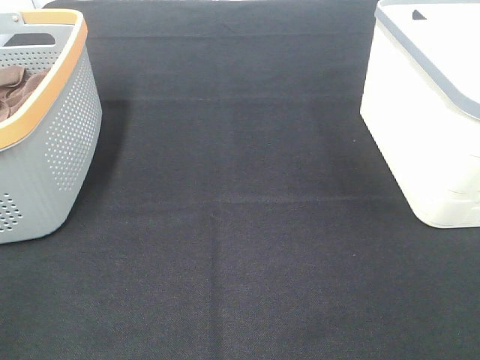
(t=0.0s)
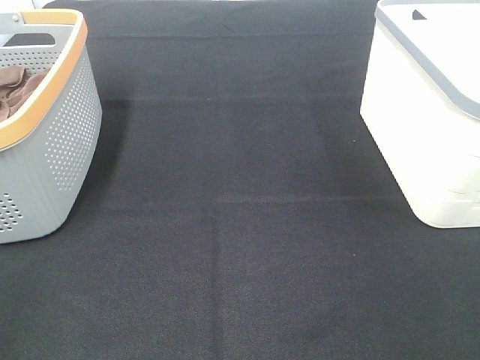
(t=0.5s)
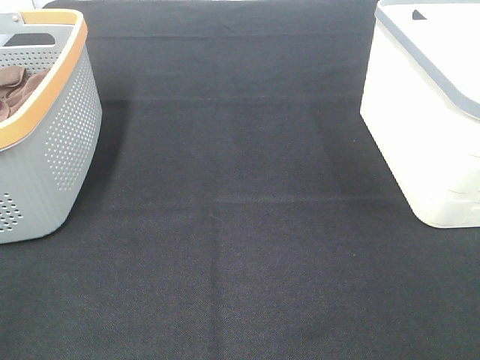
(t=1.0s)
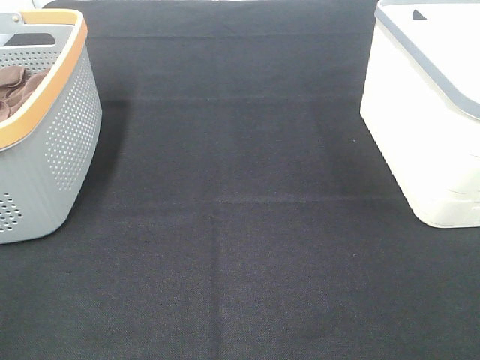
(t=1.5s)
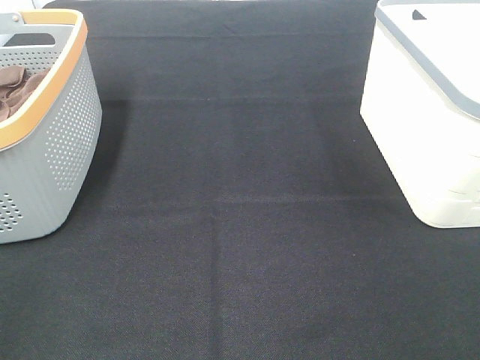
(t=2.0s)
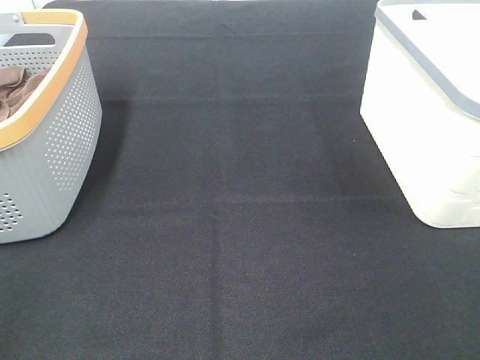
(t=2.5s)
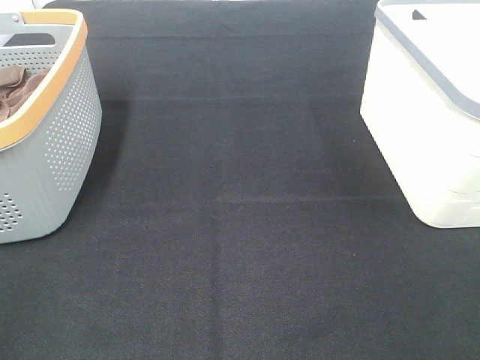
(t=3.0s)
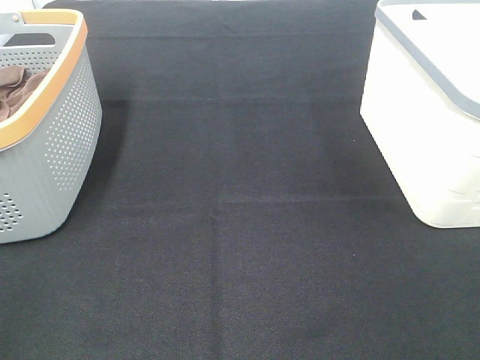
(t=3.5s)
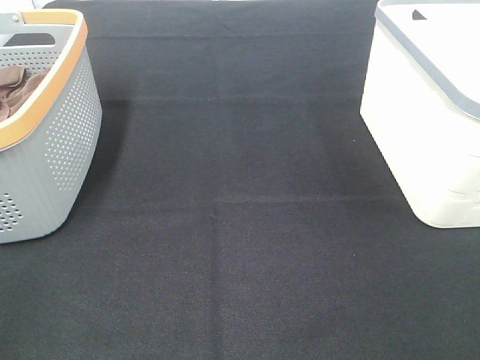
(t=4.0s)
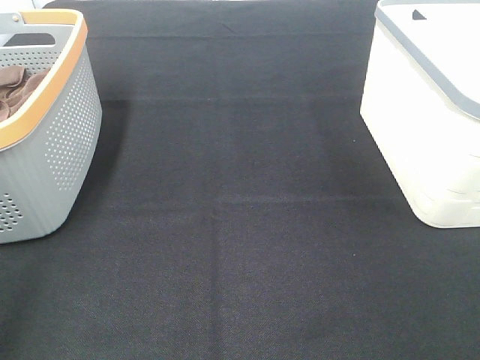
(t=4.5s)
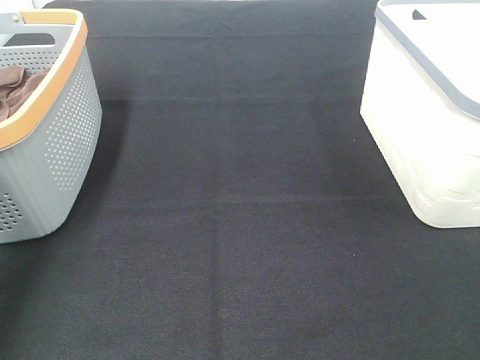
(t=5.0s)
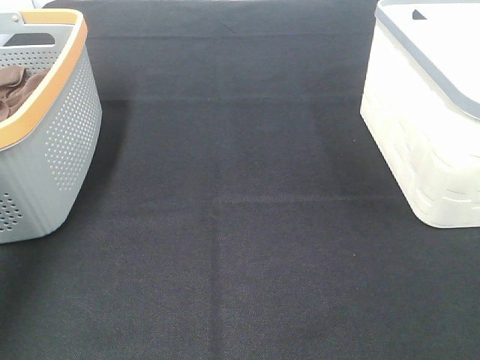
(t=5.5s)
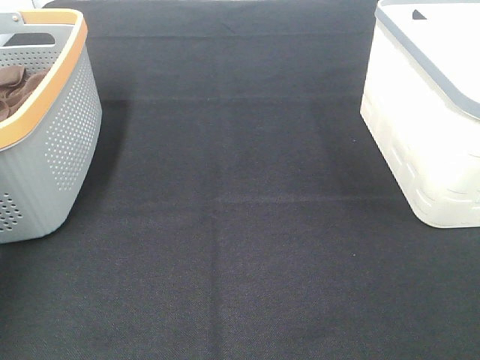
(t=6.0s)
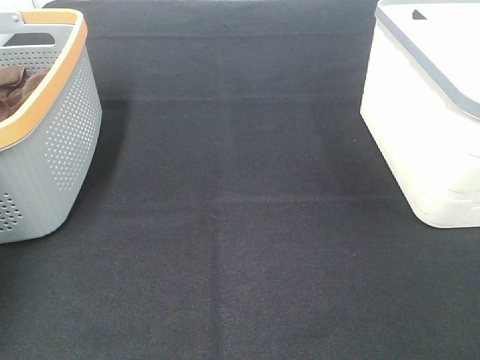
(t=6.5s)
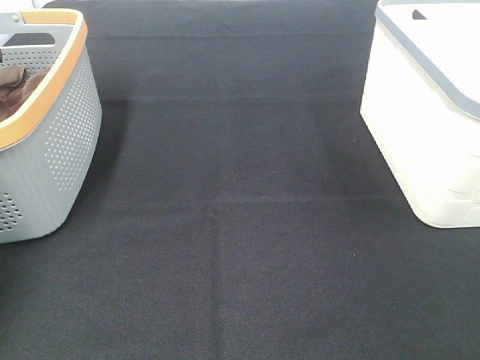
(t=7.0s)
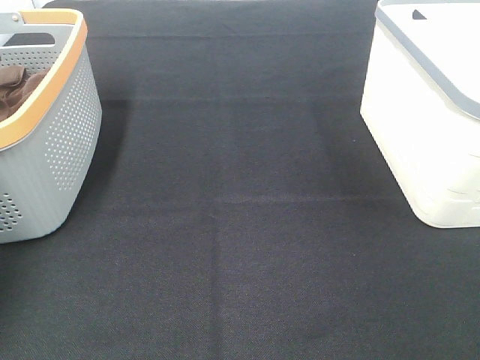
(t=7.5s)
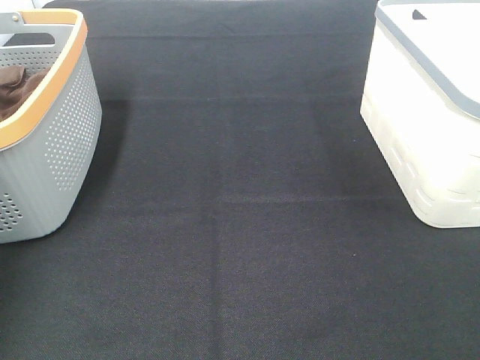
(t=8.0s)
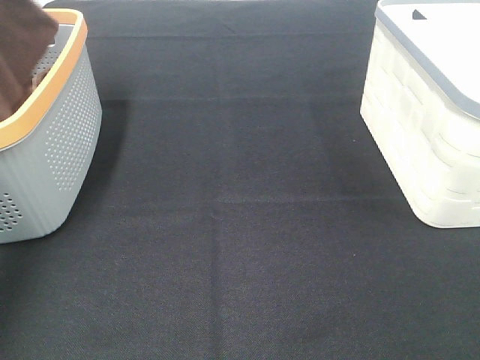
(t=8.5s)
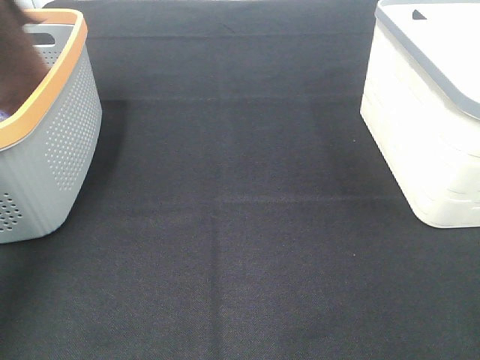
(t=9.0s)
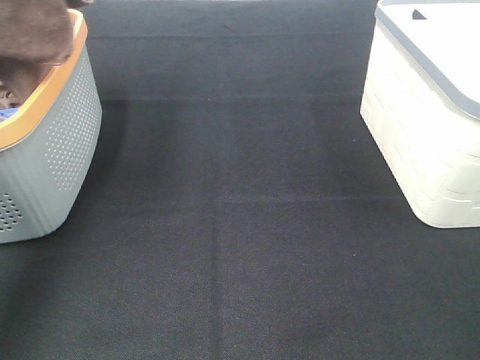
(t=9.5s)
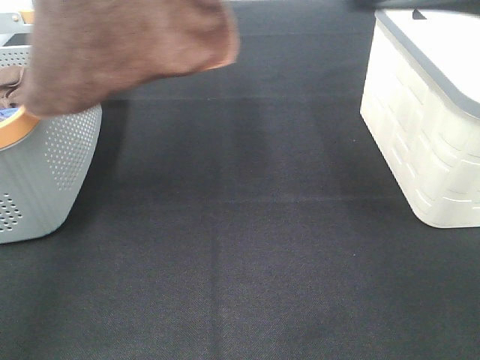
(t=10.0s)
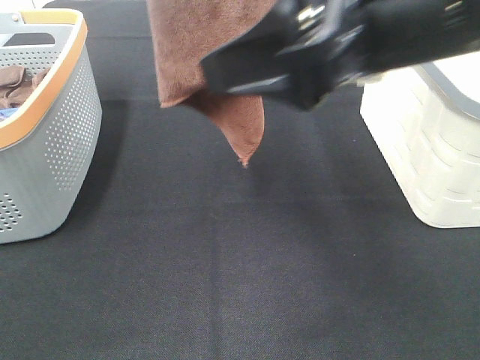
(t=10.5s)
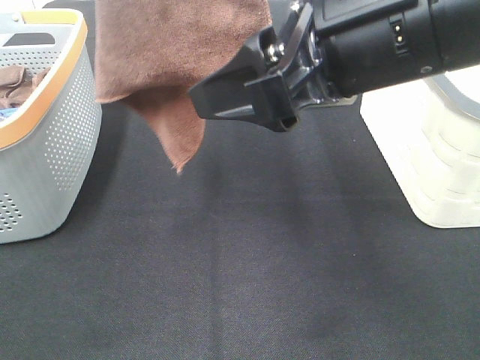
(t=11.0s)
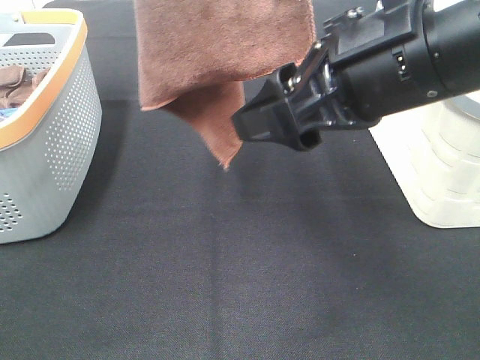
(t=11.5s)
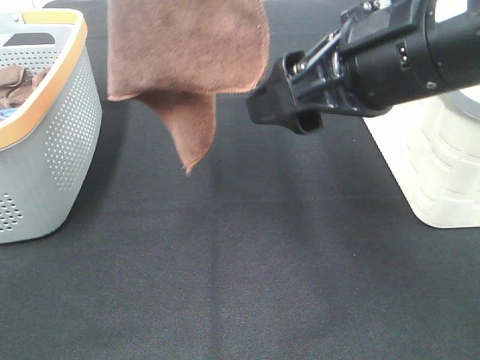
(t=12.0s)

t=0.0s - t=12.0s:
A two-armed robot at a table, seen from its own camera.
Task of the whole recording: Remove the towel and place it.
t=0.0s - t=4.0s: Both grippers stay about where they are.
t=4.0s - t=6.0s: The left gripper shifts roughly 40 cm forward.
t=8.0s - t=10.0s: The right gripper travels forward, to the left and upward by approximately 20 cm. The left gripper moves upward, to the right and backward, about 35 cm.
t=10.0s - t=12.0s: The right gripper travels downward, to the left and forward by approximately 10 cm.

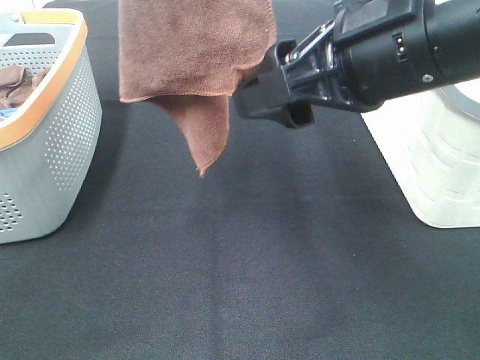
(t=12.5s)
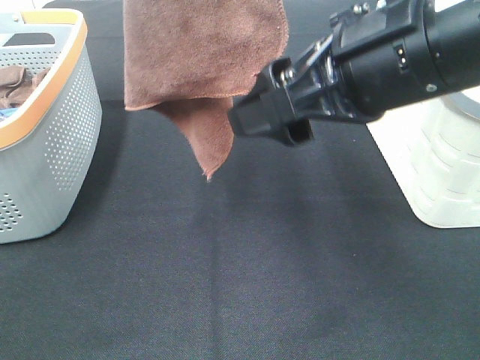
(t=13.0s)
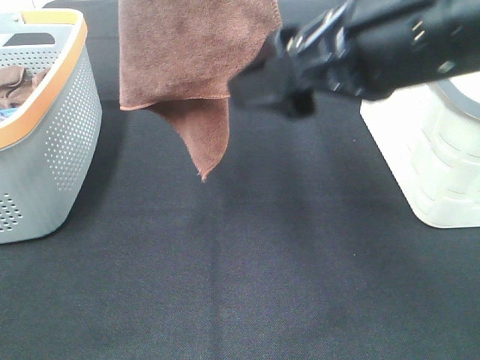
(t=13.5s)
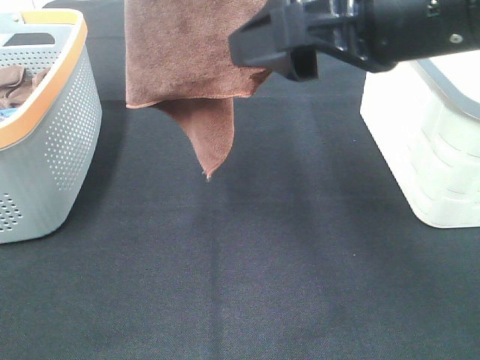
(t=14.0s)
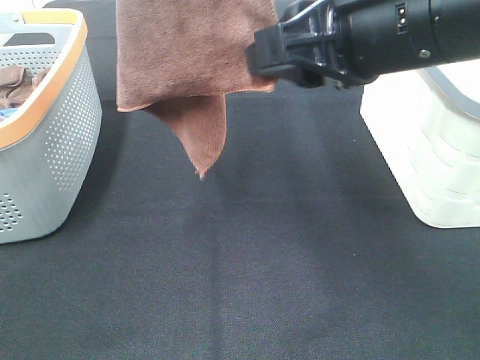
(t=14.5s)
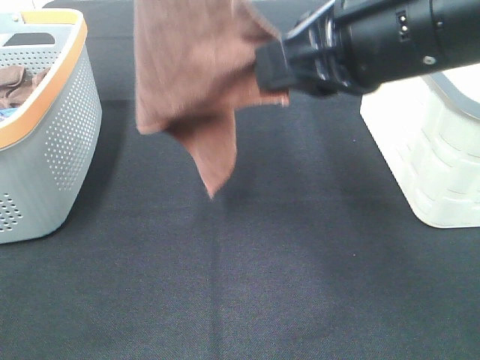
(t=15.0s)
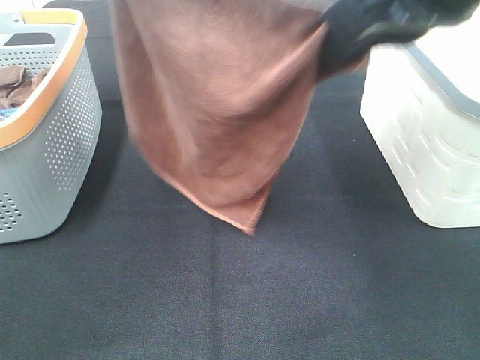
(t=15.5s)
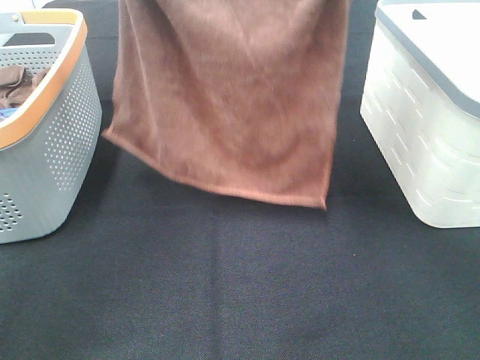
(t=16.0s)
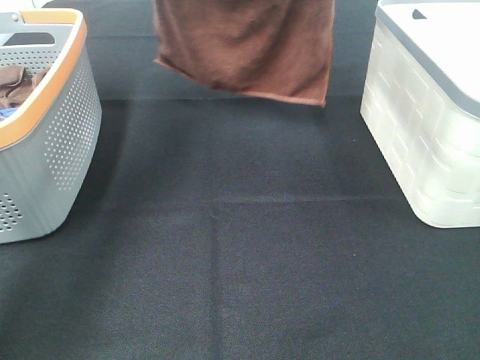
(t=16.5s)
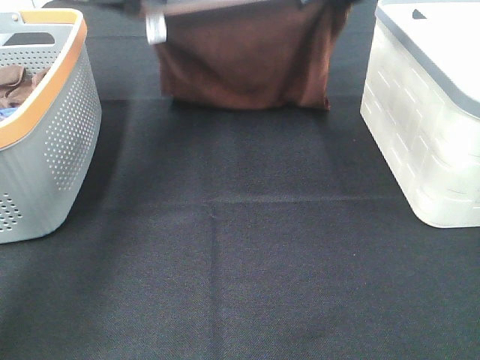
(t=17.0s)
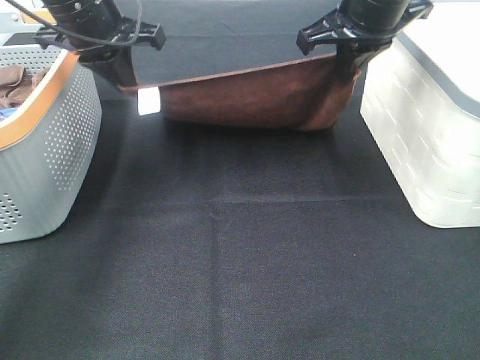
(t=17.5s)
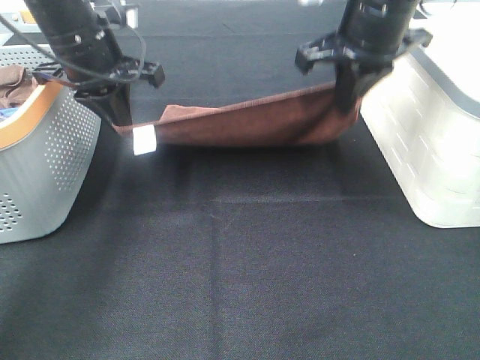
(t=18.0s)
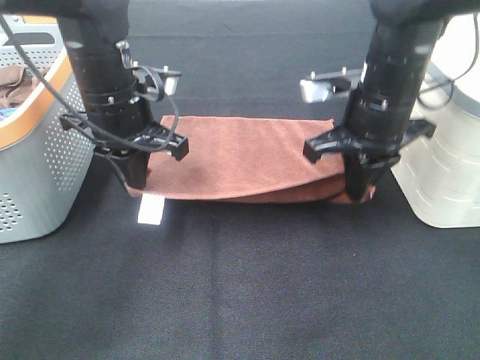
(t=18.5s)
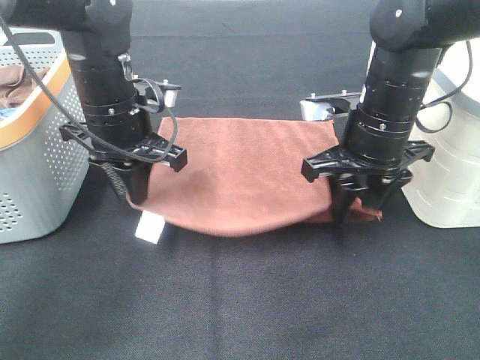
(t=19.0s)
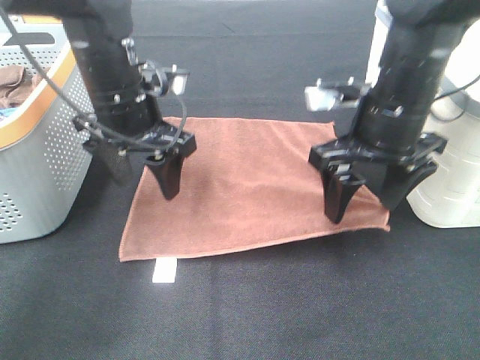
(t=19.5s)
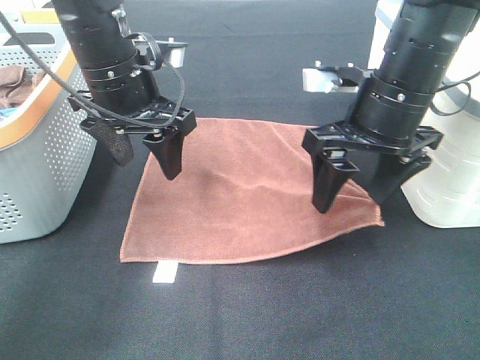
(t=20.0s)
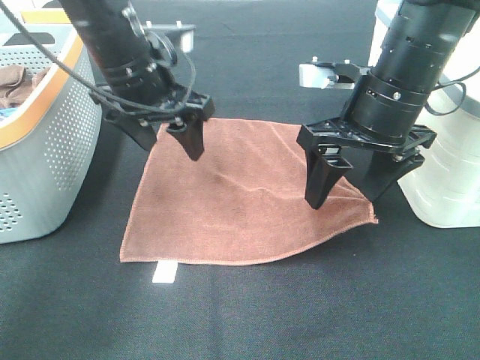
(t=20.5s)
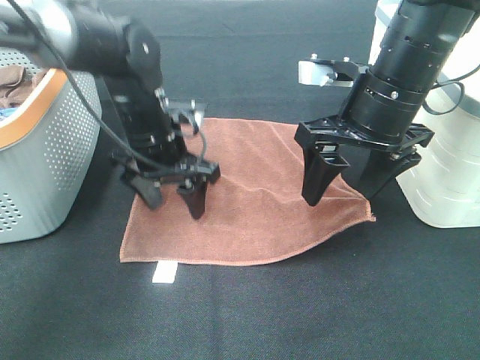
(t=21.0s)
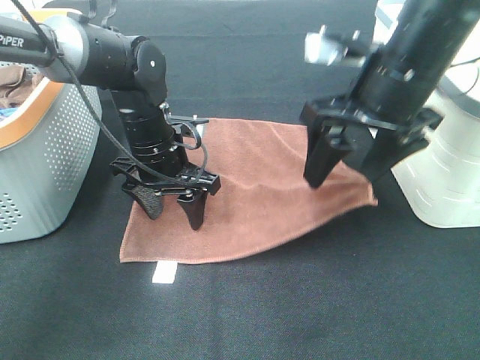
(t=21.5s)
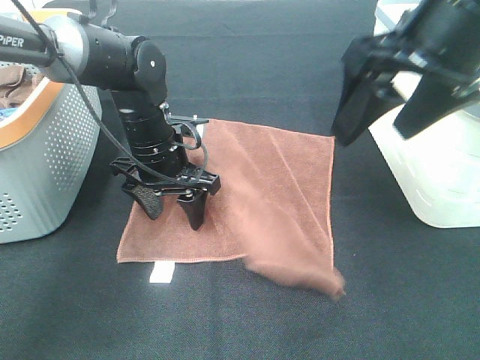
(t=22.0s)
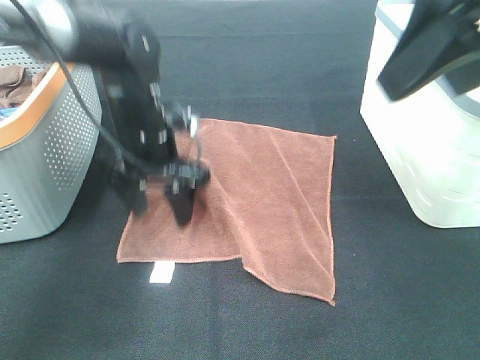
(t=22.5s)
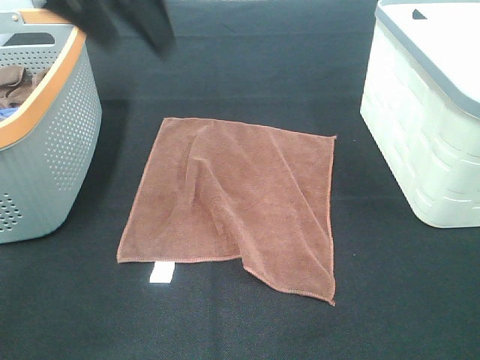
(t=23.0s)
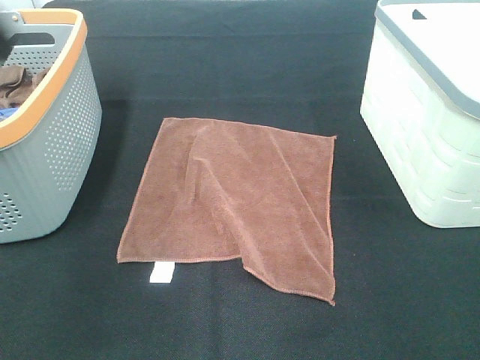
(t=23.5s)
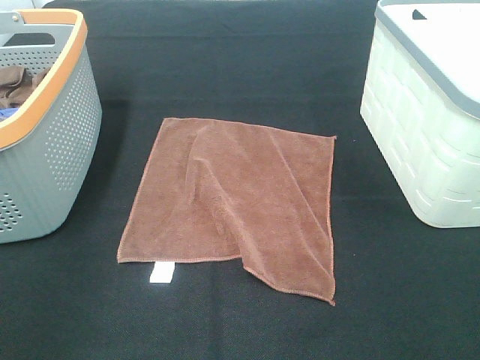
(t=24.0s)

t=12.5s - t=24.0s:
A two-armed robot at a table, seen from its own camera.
Task of the whole recording: Remove the towel and place it.
Step, t=13.0s - t=15.0s: Left hand: spread the brown towel flat on the table.
Step, t=13.0s - t=15.0s: Right hand: spread the brown towel flat on the table.
t=12.5s - t=14.5s: The right gripper closes its fingers.
t=14.5s - t=16.5s: The left gripper shifts approximately 30 cm forward and downward; the right gripper moves forward, roughly 20 cm.
t=16.5s - t=18.5s: Both grippers move downward and backward, about 20 cm.
t=18.5s - t=20.0s: The left gripper opens up. The right gripper opens up.
t=20.0s - t=22.0s: The right gripper heads upward, covering some 10 cm; the left gripper travels downward by approximately 10 cm.
t=22.0s - t=24.0s: The left gripper shifts roughly 40 cm backward, upward and to the left. Meanwhile the right gripper moves backward and to the right, approximately 25 cm.

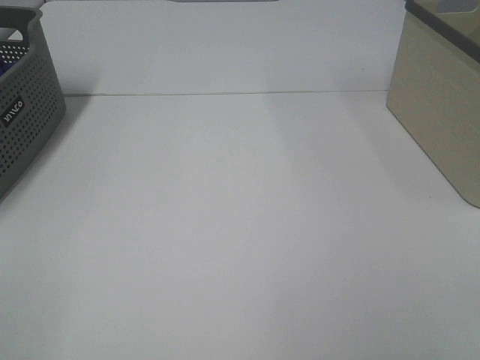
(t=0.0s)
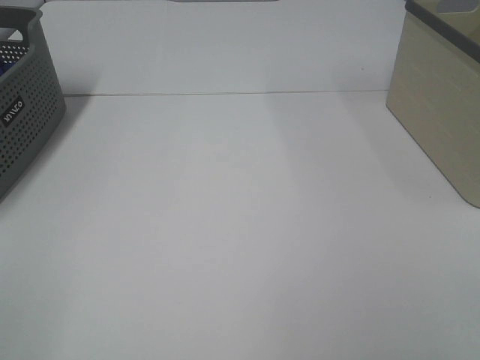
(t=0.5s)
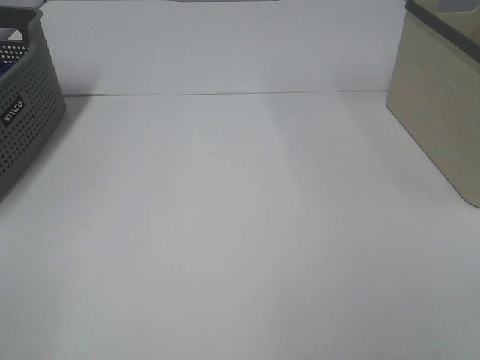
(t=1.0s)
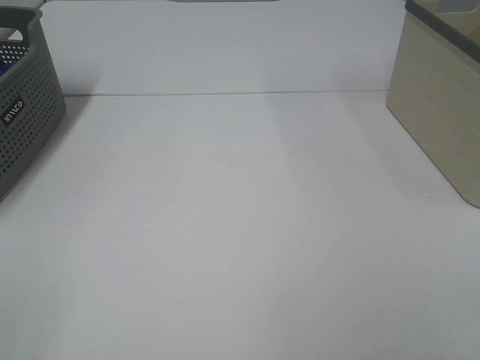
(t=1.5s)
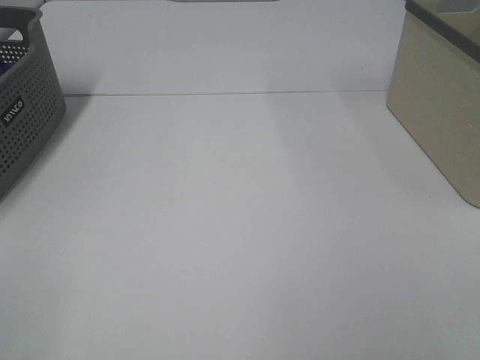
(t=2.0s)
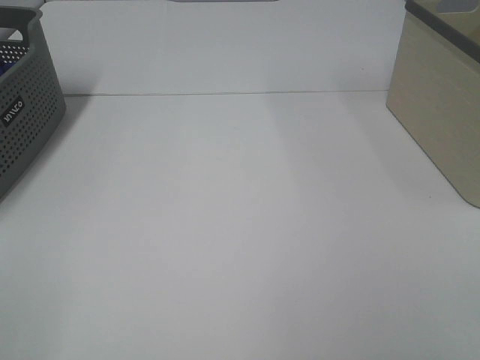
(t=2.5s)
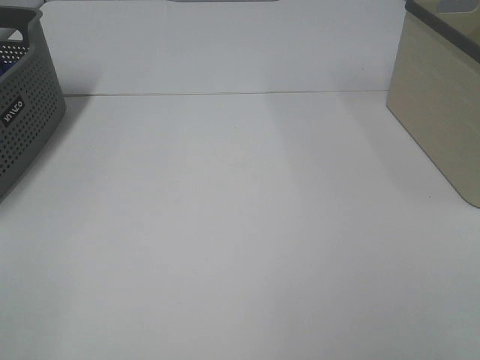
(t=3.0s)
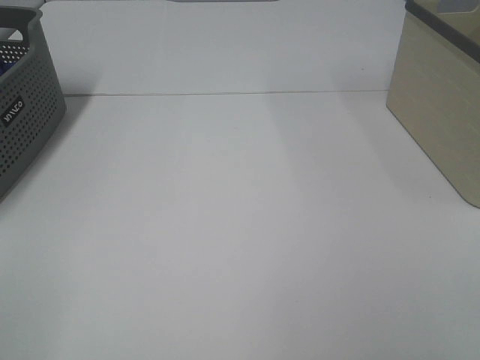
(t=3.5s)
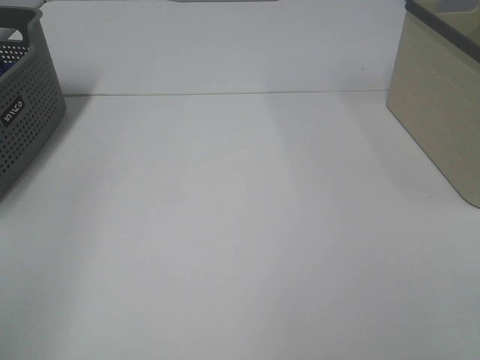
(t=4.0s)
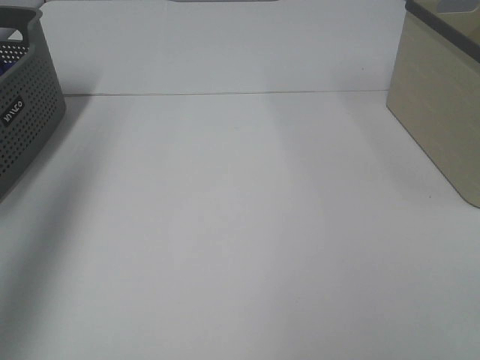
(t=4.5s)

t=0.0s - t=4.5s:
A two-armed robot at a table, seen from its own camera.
Task of the whole recording: Remove the towel and place it.
t=0.0s - t=2.0s: Both grippers stay put.
t=2.0s - t=4.5s: The left gripper goes some 30 cm forward and upward.
